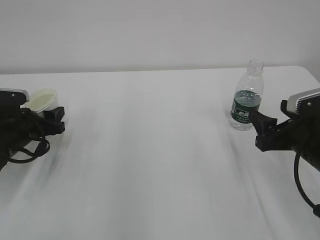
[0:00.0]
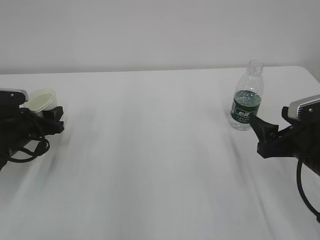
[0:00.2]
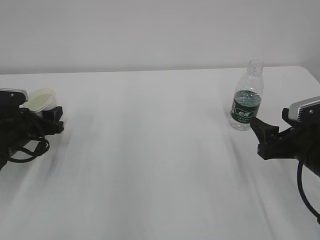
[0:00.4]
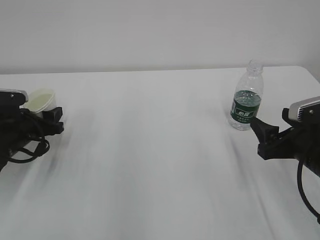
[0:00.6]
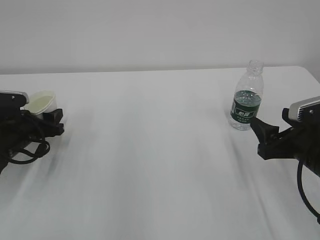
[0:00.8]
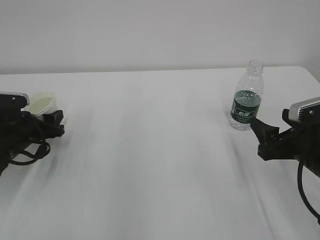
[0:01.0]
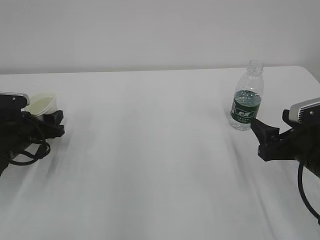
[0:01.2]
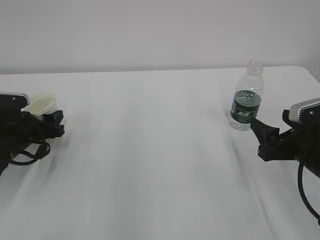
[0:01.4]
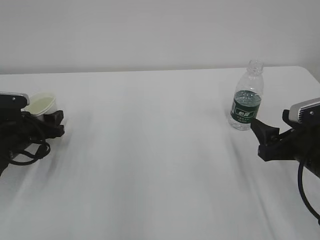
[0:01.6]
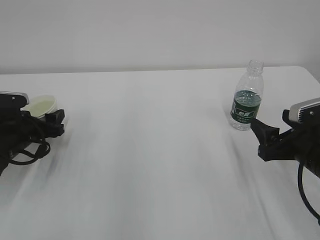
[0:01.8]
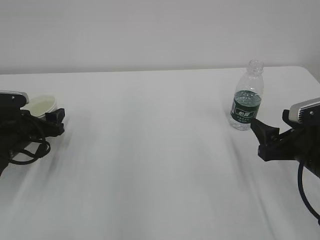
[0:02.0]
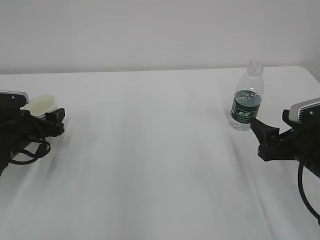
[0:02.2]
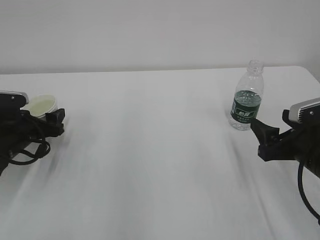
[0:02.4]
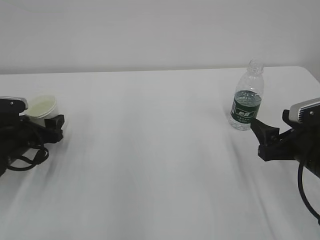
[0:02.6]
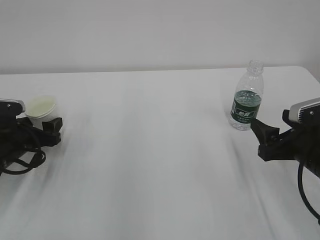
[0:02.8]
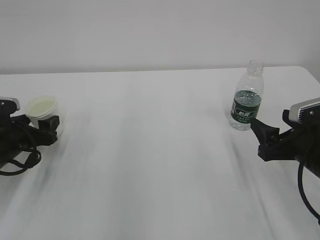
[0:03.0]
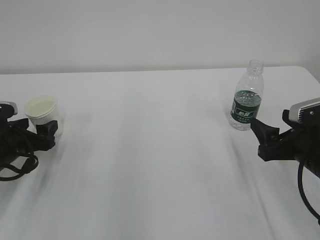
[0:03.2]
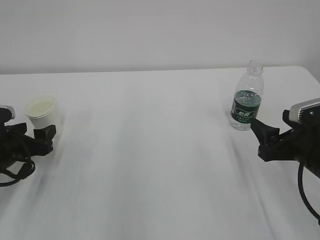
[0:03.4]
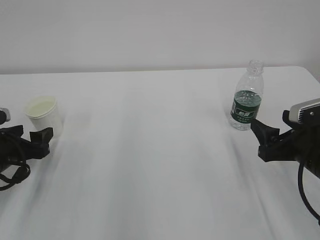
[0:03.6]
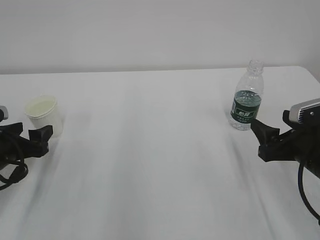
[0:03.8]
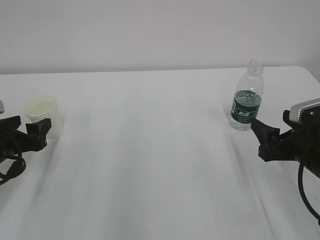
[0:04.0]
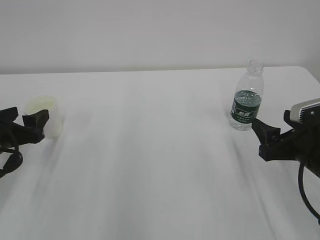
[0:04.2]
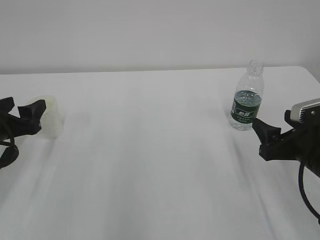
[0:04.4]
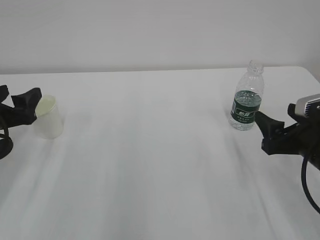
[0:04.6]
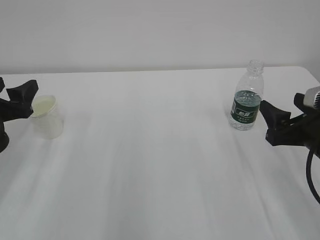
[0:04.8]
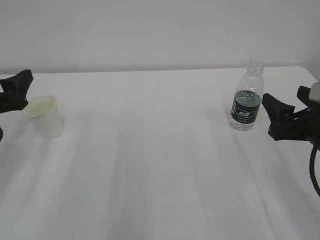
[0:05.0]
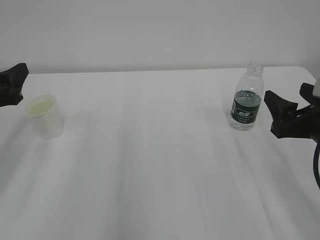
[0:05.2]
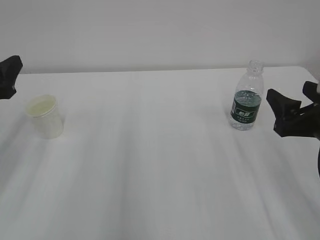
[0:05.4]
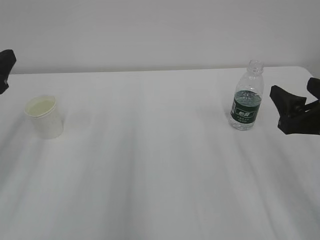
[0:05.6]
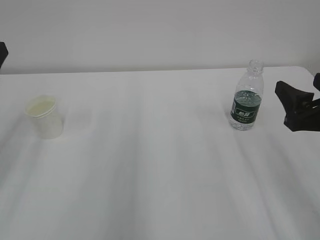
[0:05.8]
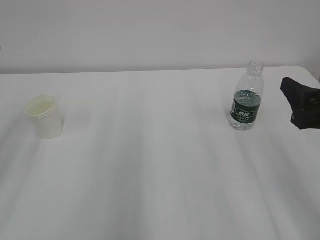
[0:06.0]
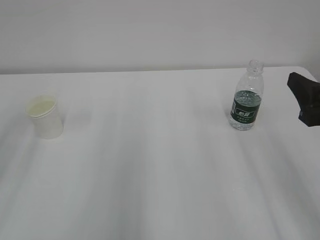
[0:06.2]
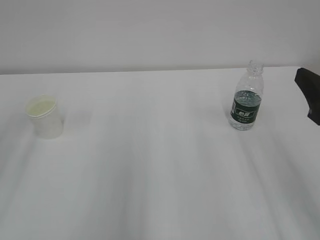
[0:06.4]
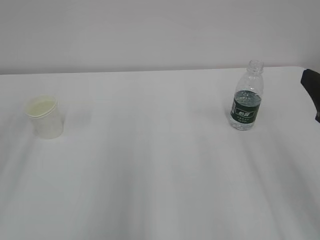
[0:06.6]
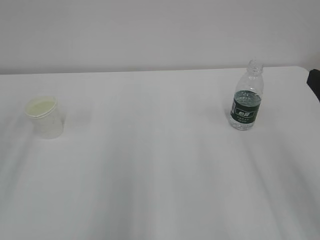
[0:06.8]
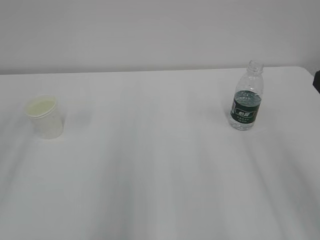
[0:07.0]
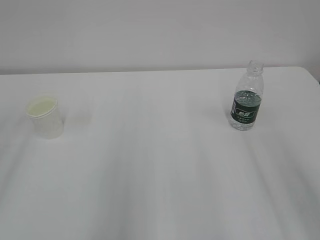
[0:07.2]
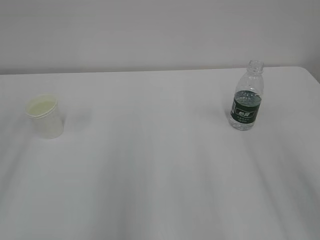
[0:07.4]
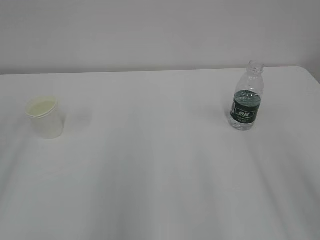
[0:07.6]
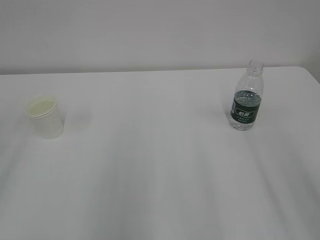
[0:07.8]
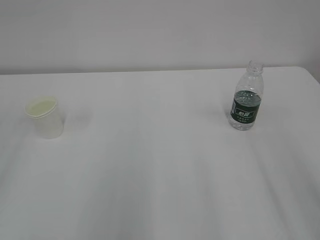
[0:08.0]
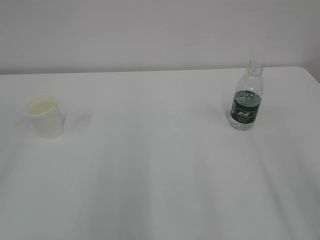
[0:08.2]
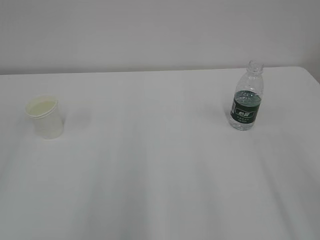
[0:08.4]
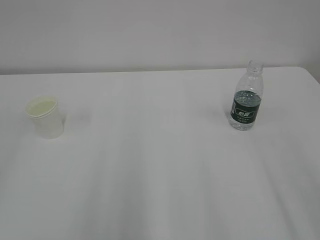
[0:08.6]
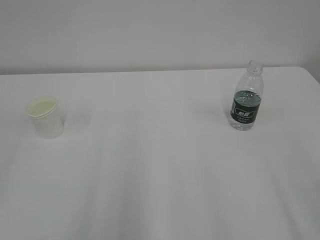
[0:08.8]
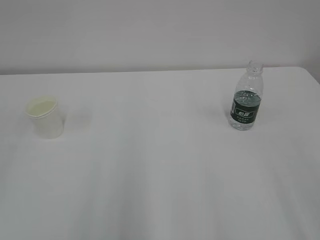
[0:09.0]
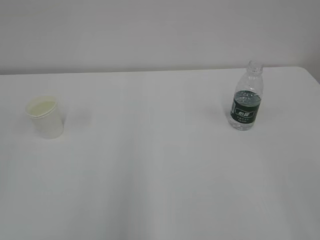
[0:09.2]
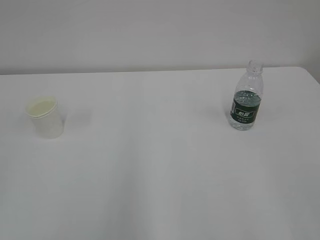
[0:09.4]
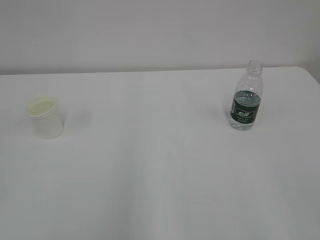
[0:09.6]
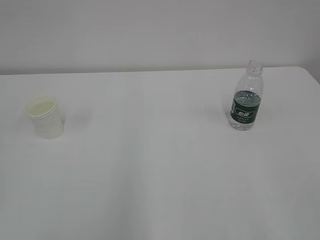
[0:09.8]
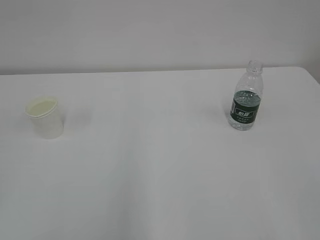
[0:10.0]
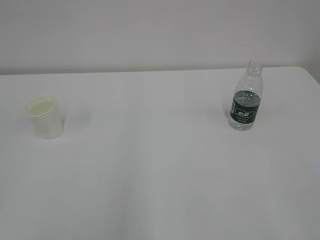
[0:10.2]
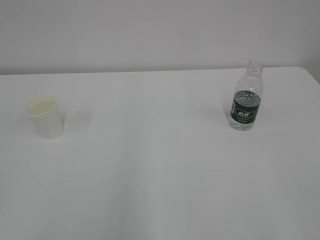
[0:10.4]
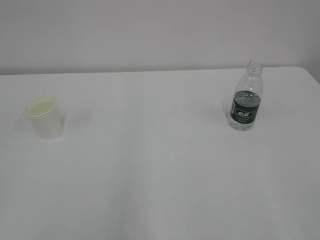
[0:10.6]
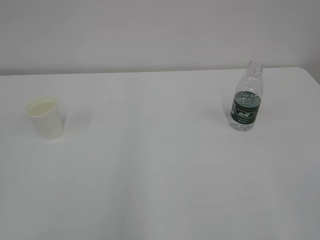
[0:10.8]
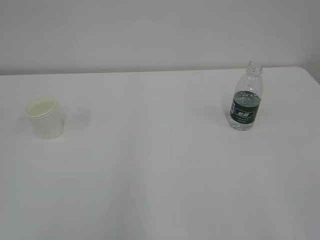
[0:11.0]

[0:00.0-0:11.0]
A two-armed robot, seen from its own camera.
0:00.0 to 0:01.6: There are only small adjustments of the grippers.
0:01.6 to 0:03.2: The left gripper opens up.
0:03.2 to 0:04.8: The left gripper shifts roughly 10 cm upward.
0:04.8 to 0:06.2: The left gripper travels upward and backward by about 10 cm. The right gripper moves upward, some 10 cm.
0:06.2 to 0:07.8: The right gripper moves backward and upward, approximately 10 cm.

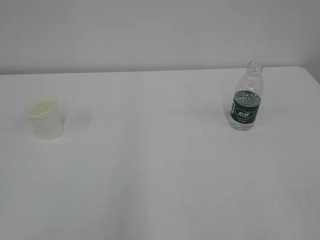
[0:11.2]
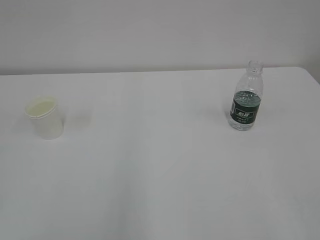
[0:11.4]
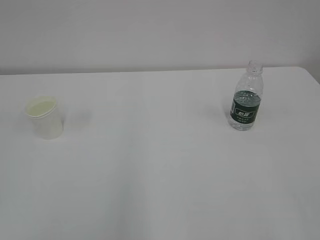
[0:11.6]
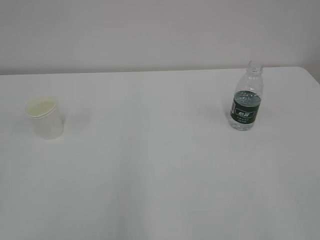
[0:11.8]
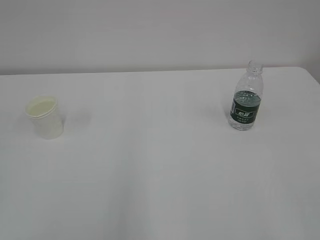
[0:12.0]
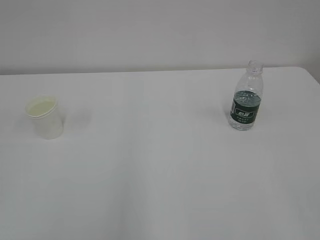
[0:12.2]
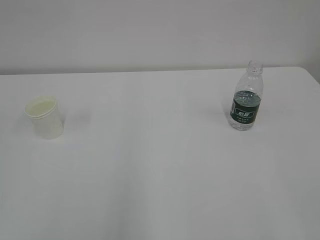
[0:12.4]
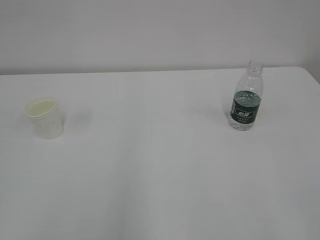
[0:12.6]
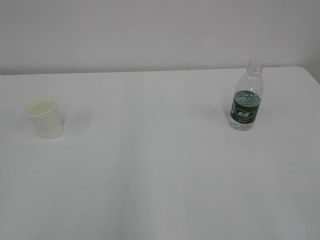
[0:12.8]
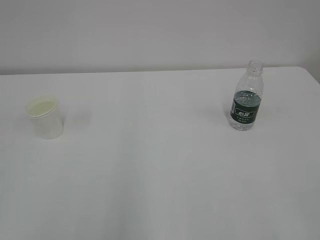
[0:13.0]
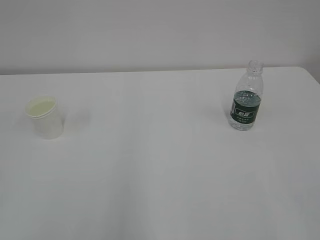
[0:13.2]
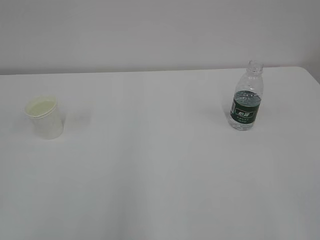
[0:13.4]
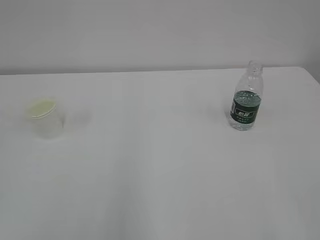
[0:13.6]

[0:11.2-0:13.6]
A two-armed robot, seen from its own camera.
0:11.2 to 0:13.6: Neither gripper changes place.
